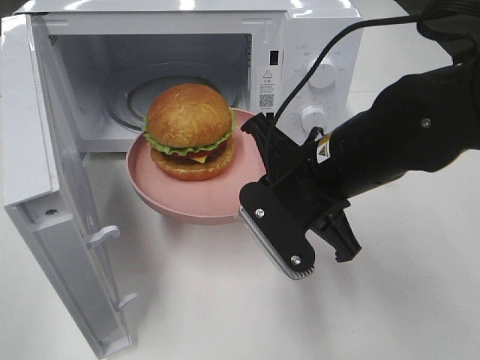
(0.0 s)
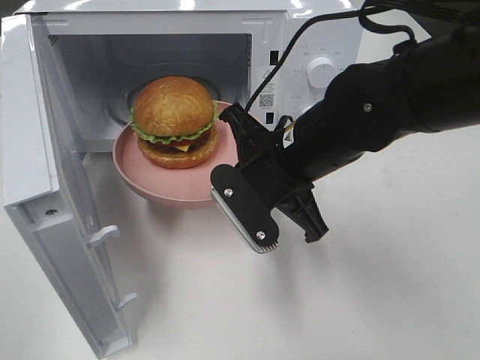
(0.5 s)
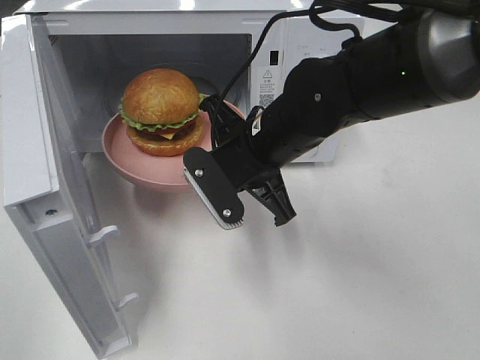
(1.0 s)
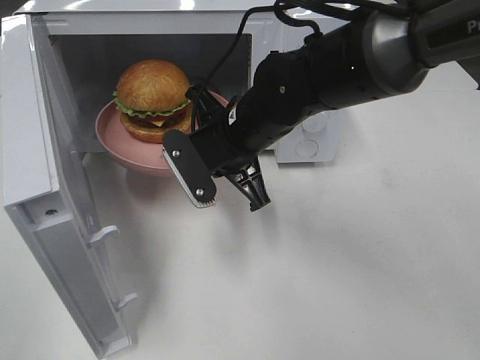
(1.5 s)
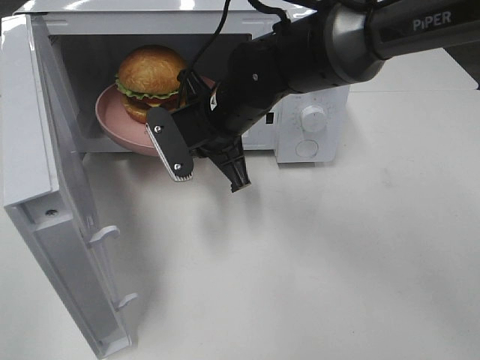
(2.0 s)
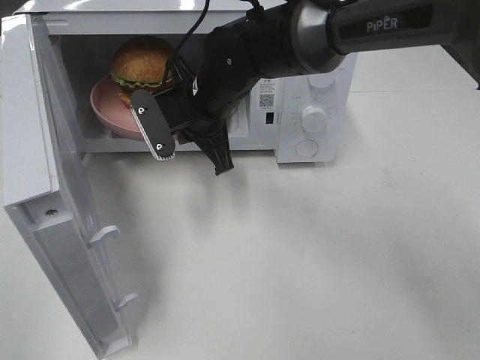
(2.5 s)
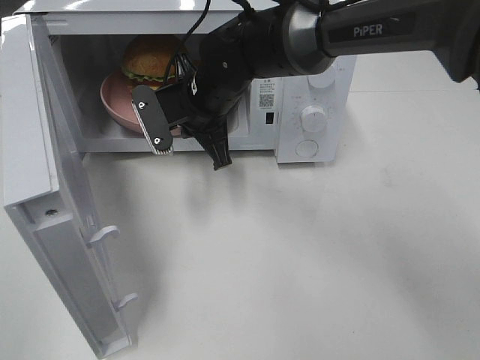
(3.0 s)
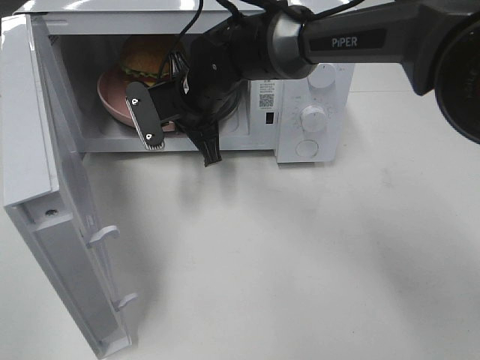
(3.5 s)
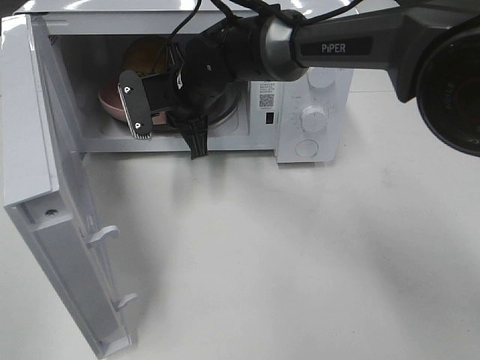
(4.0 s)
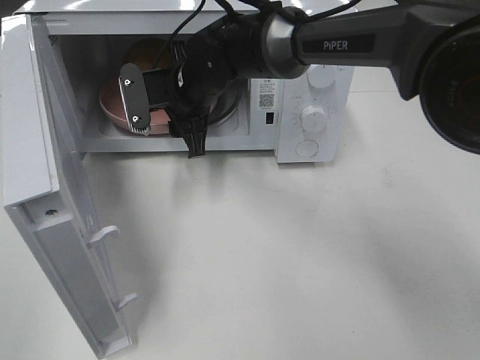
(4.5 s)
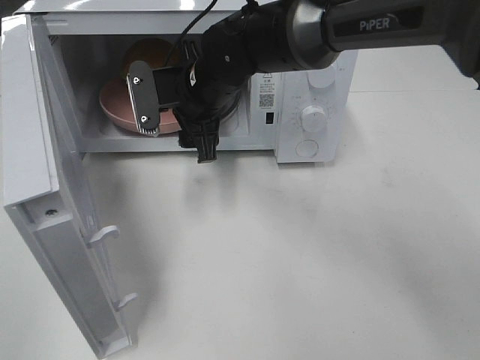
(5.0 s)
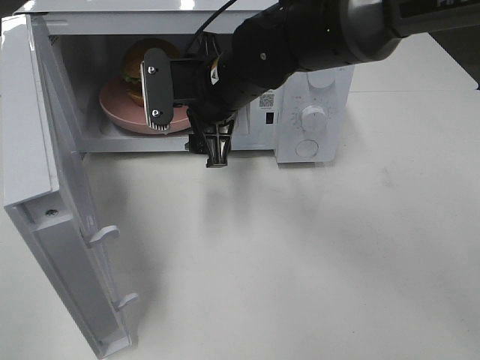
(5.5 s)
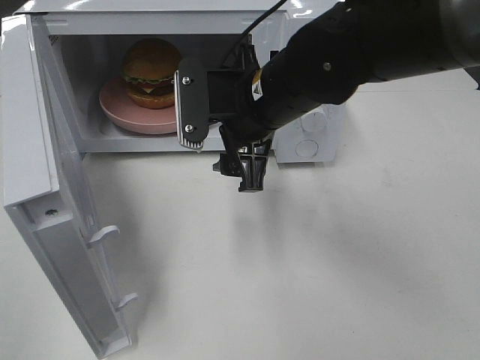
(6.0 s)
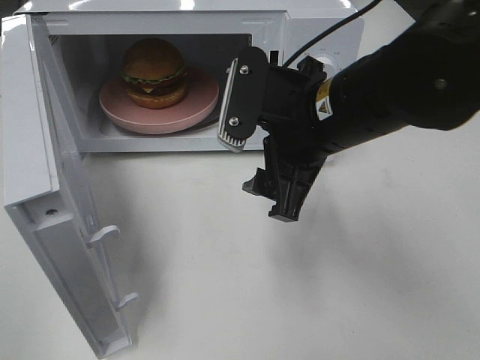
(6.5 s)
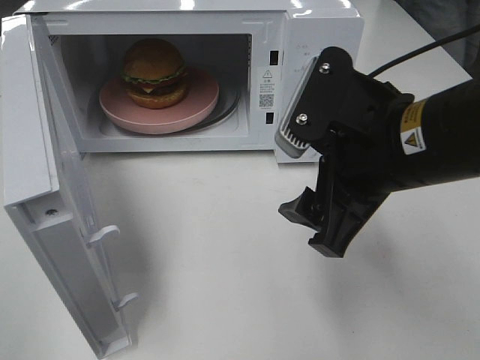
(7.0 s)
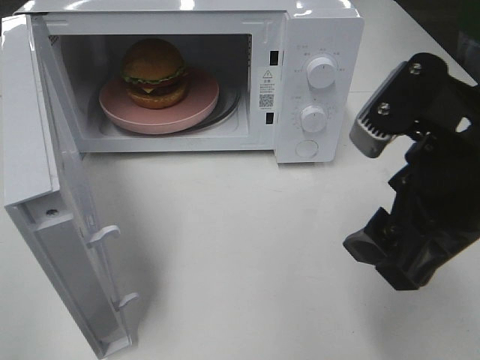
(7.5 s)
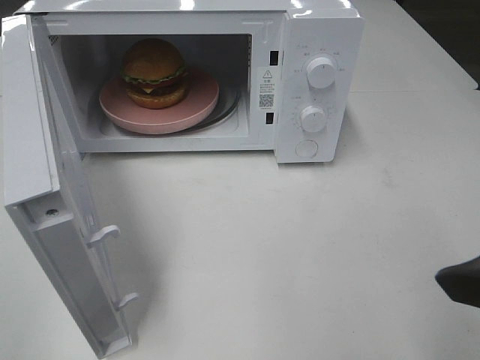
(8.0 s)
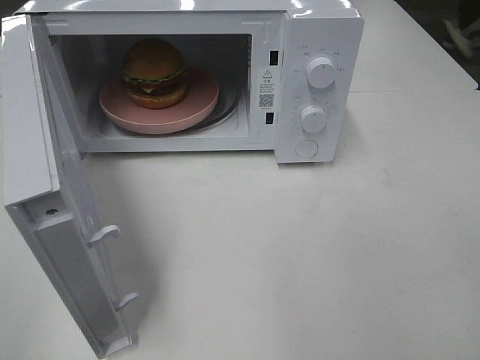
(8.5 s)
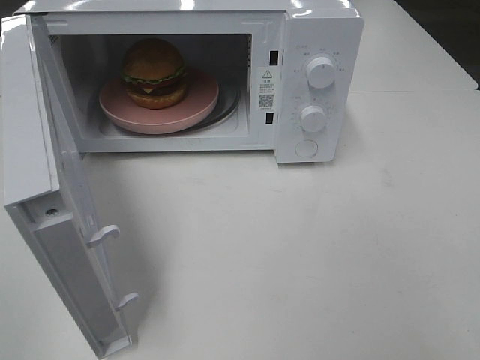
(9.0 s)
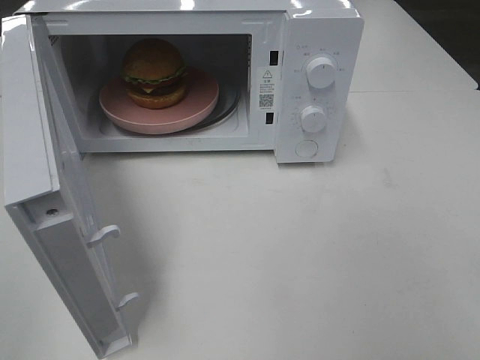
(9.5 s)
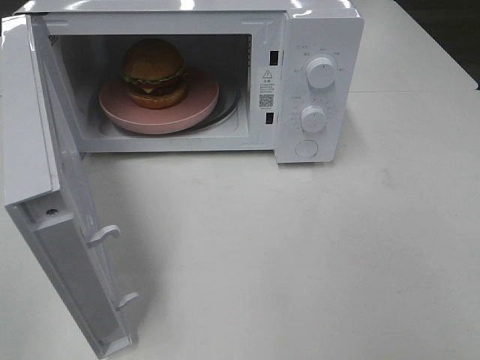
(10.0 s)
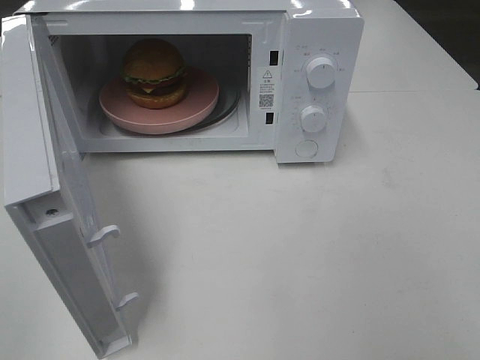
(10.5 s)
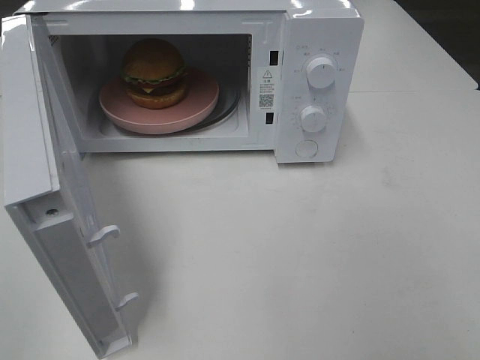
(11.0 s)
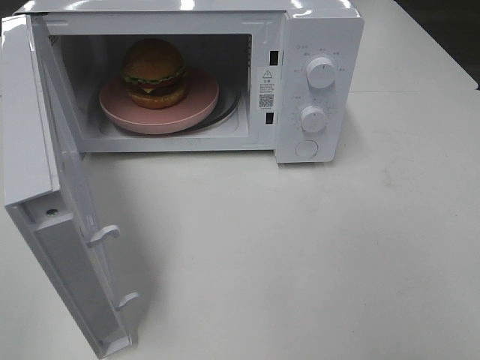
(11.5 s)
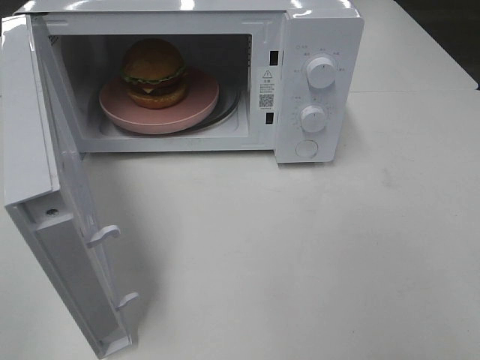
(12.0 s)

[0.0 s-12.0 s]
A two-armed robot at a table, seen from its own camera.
Task of the whole recording: Heat the burger.
Step, 0.0 to 4.0 s: Right hand: place the plate in the microwave.
0.0 to 2.0 s: The right gripper moves forward and to the left, about 15 cm.
2.0 to 4.0 s: The right gripper travels forward by approximately 5 cm.
4.0 to 6.0 s: The right gripper goes approximately 15 cm backward and to the right, and opens.
6.0 to 8.0 s: The right gripper heads backward and to the right, covering approximately 25 cm.
8.0 to 10.0 s: The right gripper travels backward and to the right by some 15 cm.
10.0 to 12.0 s: Both grippers stay about where they are.

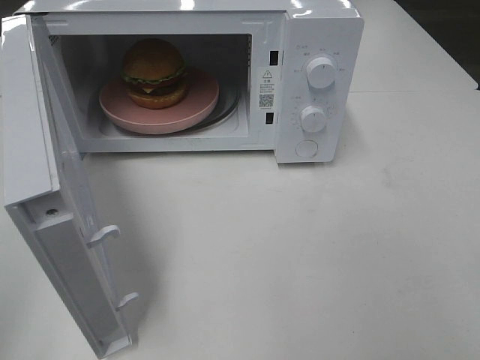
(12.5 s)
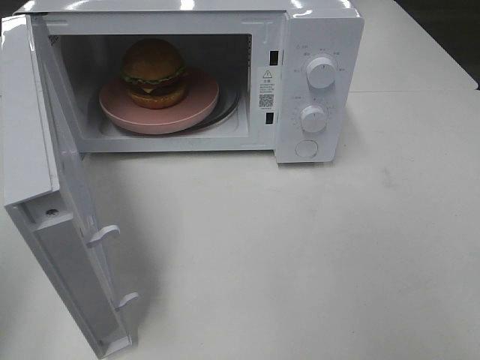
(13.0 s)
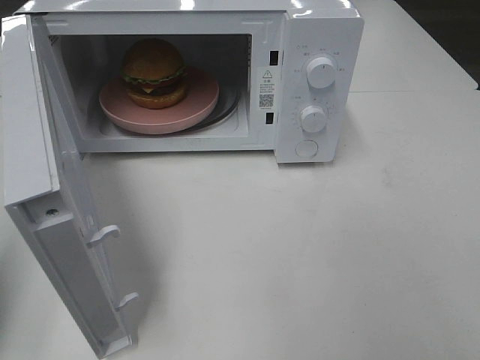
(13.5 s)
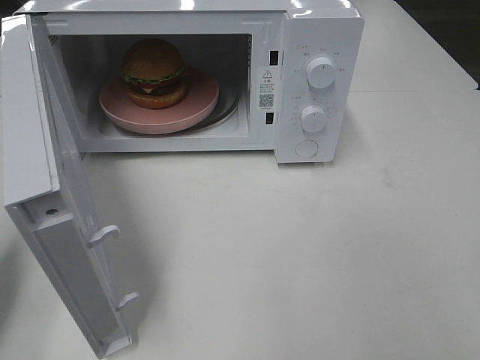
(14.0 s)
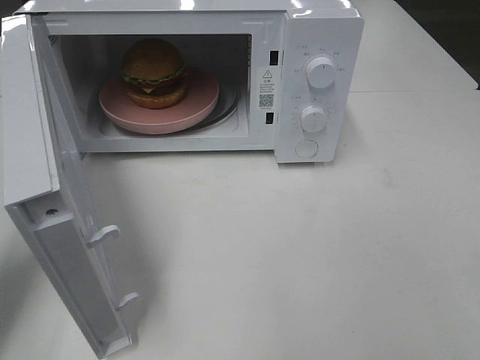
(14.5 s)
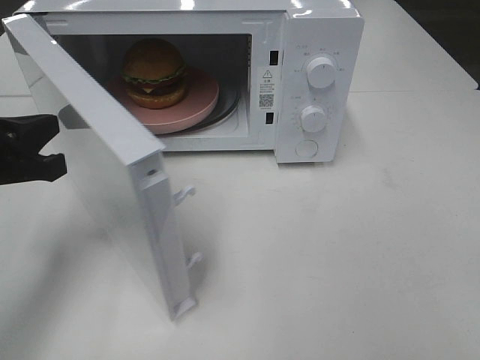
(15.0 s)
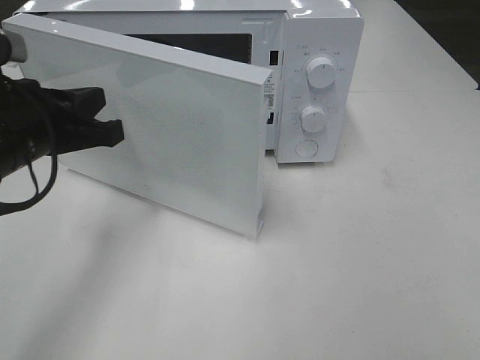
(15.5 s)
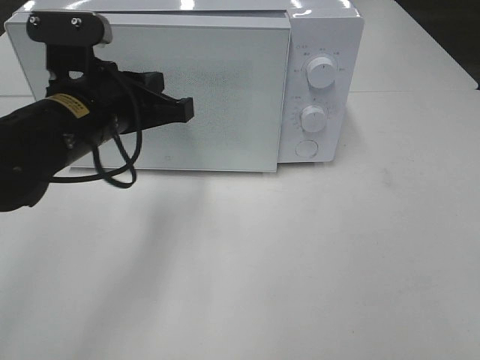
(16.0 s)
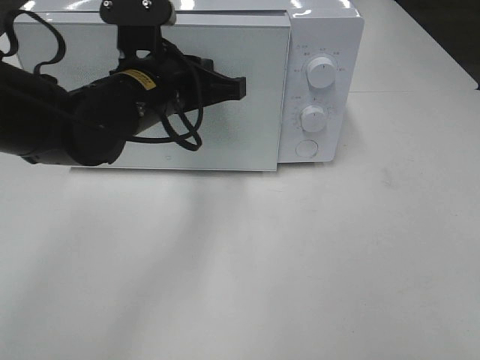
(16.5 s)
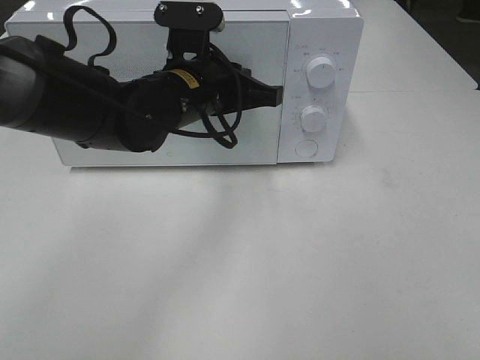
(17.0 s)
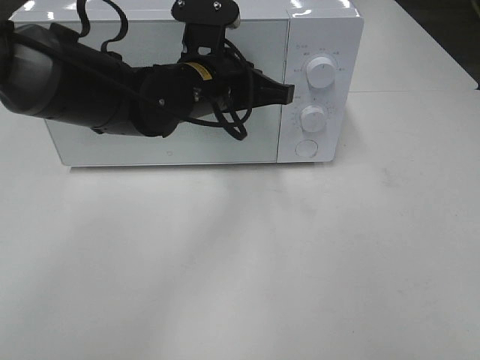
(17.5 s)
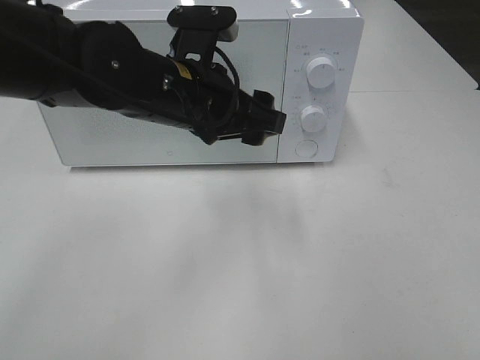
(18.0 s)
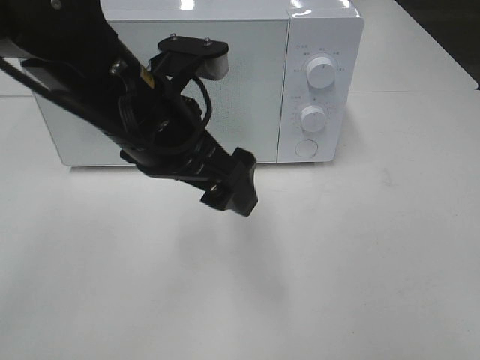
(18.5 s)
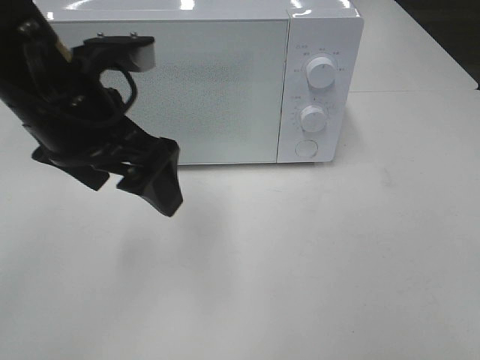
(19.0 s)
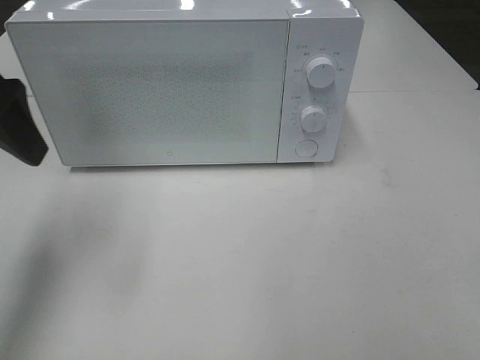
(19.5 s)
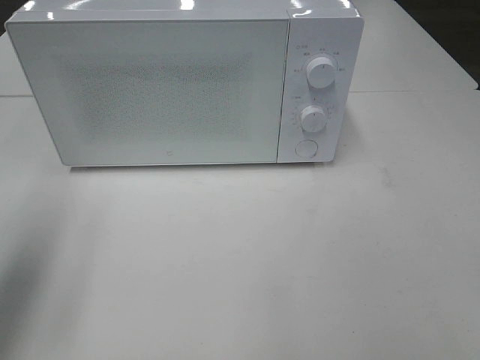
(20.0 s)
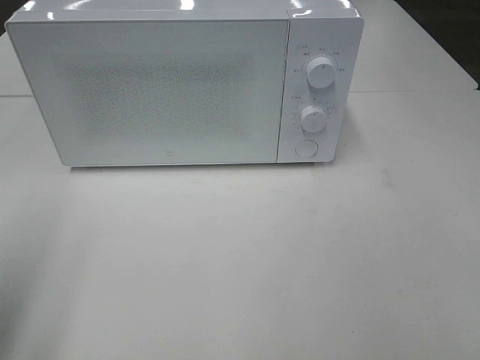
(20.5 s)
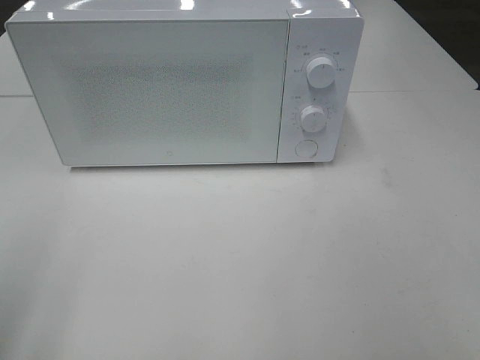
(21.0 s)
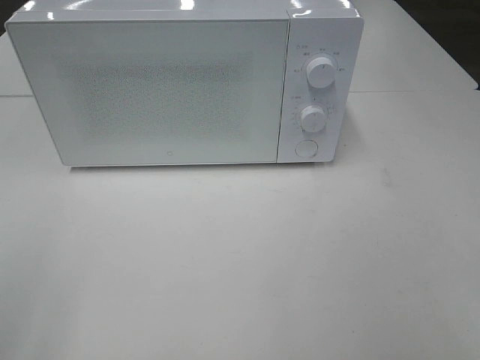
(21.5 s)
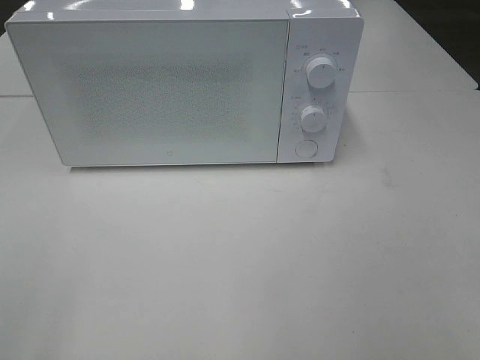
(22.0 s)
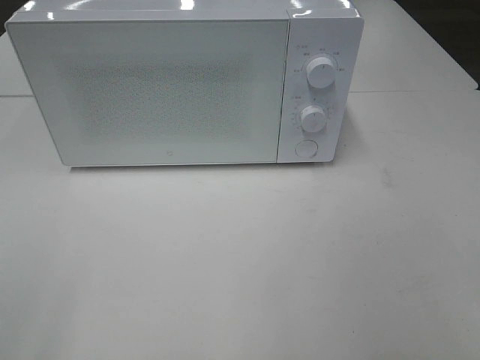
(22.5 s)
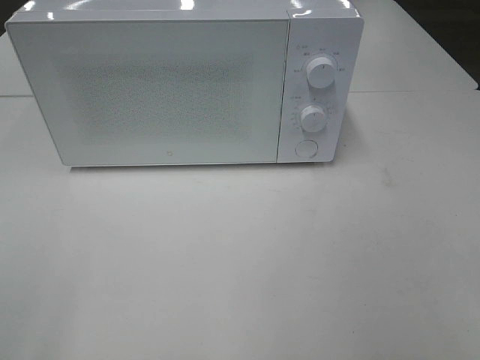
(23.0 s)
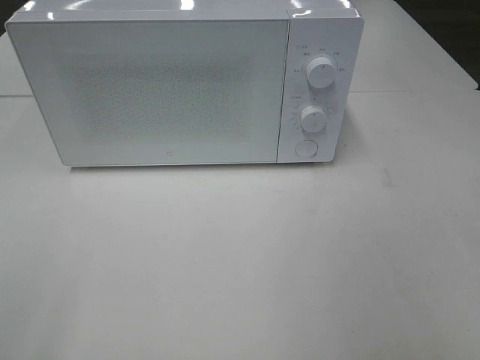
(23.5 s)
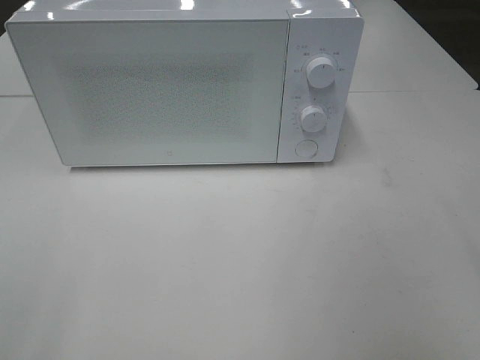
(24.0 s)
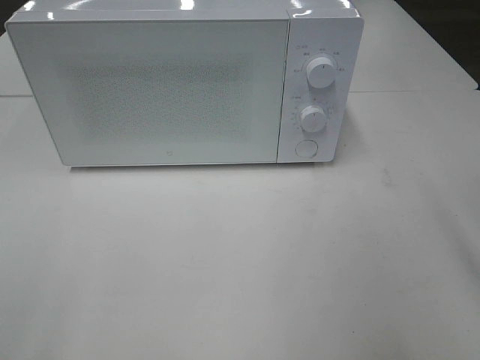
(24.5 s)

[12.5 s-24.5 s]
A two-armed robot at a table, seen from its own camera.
Task of the whole recording: Heat the burger.
Step, 12.5 to 17.5 s: Left hand: close the microwave door.
12.5 to 14.5 s: The left gripper moves forward and downward, about 20 cm.
14.5 to 16.5 s: The left gripper travels to the right and forward by roughly 25 cm.
16.5 to 18.5 s: The left gripper goes about 10 cm backward, and opens its fingers.
18.5 to 20.5 s: The left gripper heads to the left and backward, covering roughly 25 cm.

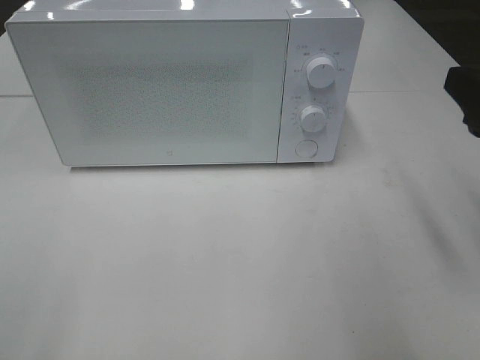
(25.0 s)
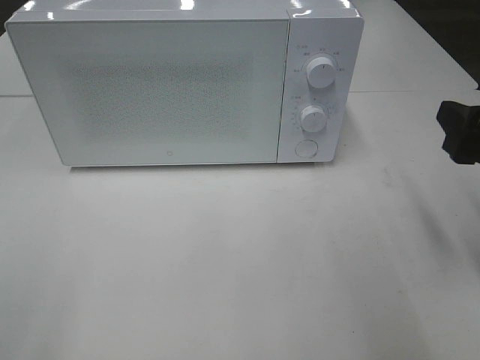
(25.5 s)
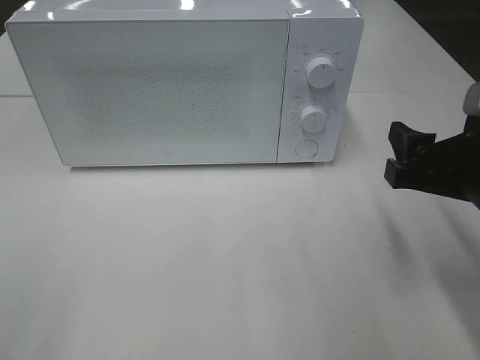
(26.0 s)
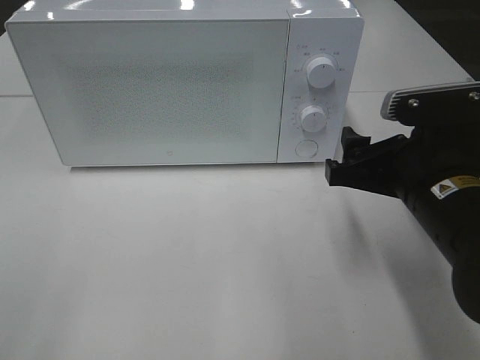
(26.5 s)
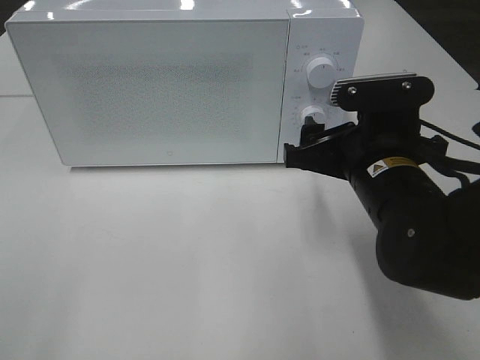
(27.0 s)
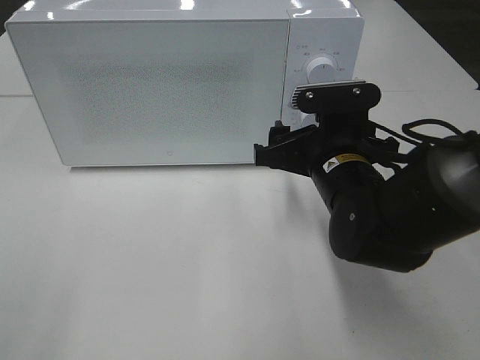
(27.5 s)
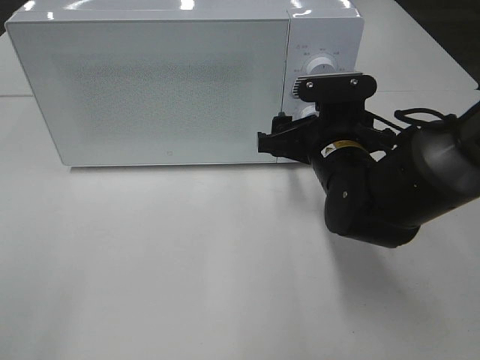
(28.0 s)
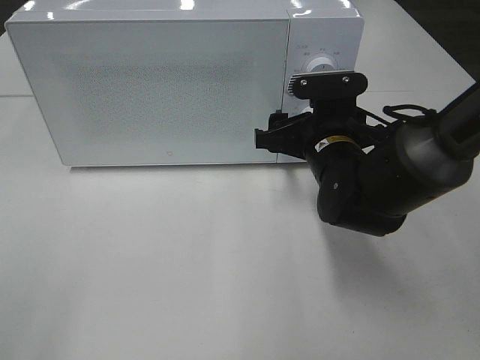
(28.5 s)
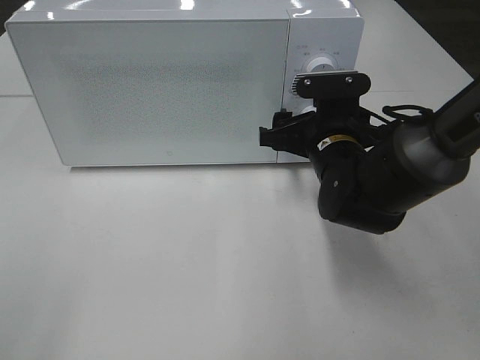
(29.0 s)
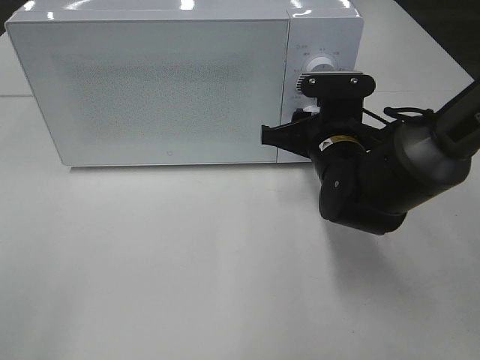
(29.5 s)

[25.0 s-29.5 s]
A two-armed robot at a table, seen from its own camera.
Task of the whole recording: Heat the burger.
25.0 to 27.0 s: The right gripper goes roughly 15 cm to the left, downward and forward.
27.0 to 29.5 s: The right gripper goes roughly 10 cm forward, and closes up.
